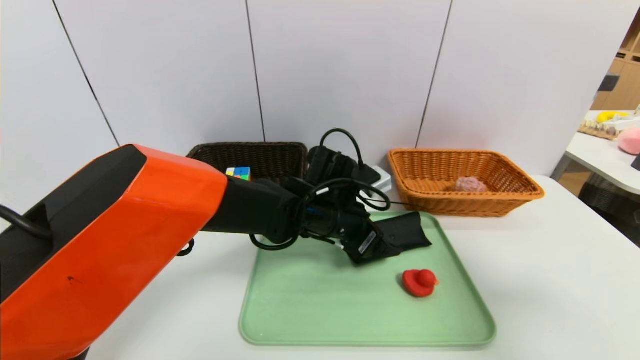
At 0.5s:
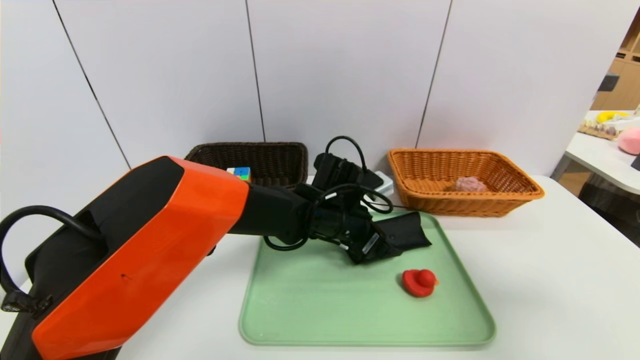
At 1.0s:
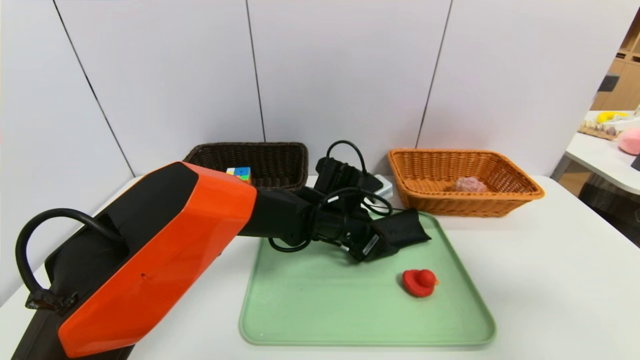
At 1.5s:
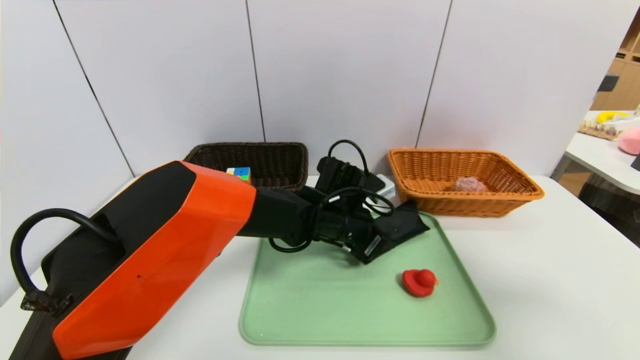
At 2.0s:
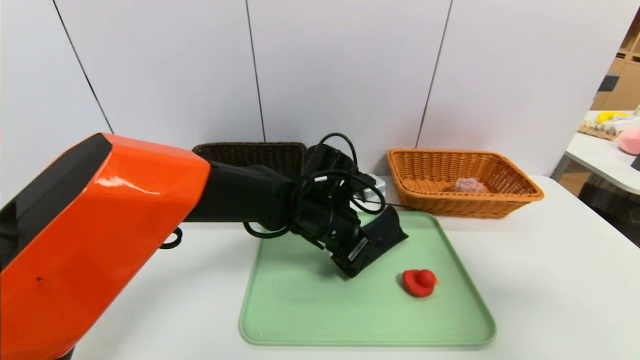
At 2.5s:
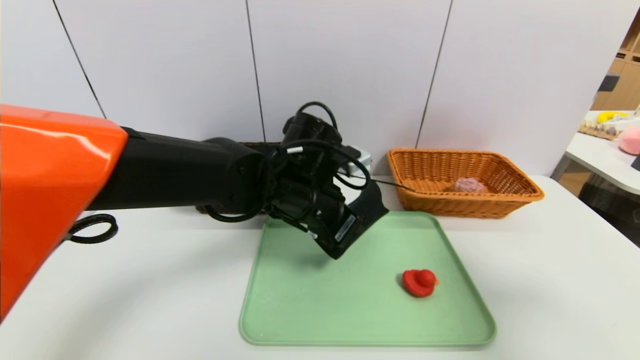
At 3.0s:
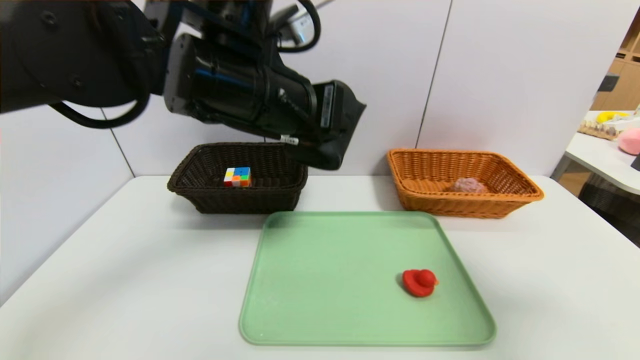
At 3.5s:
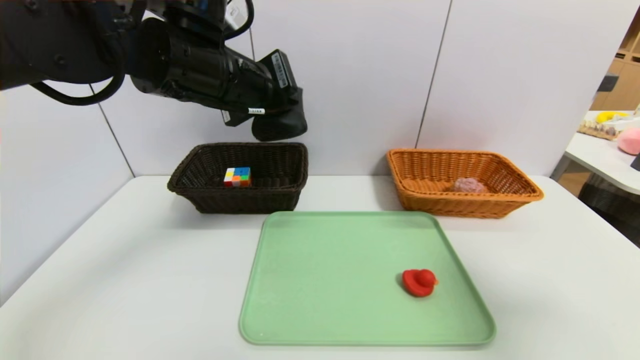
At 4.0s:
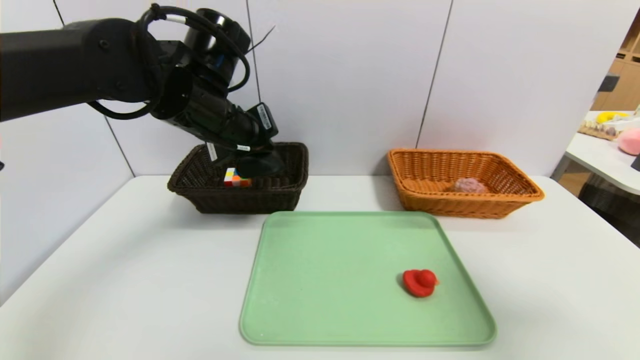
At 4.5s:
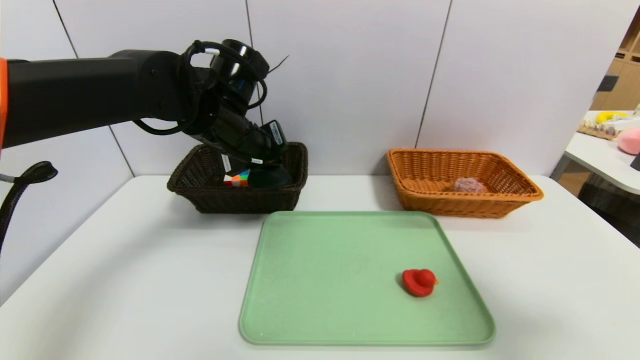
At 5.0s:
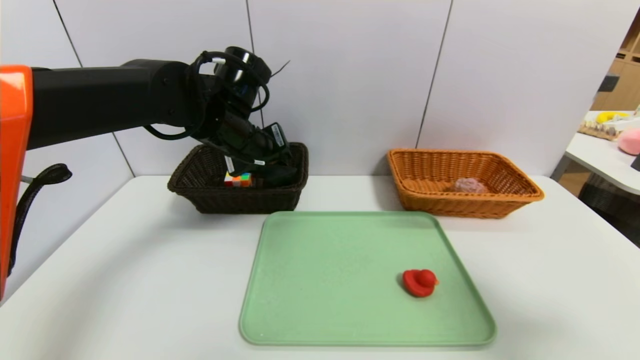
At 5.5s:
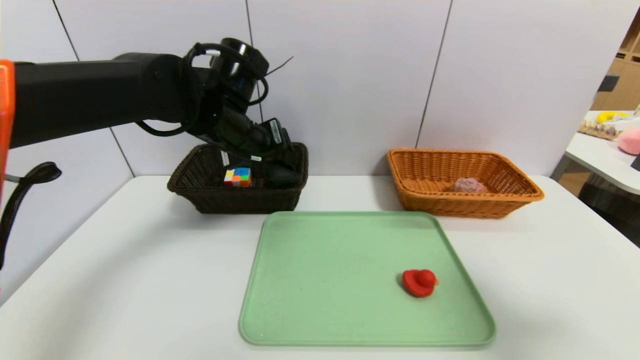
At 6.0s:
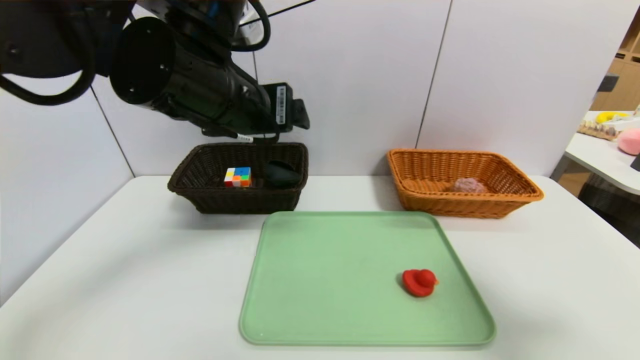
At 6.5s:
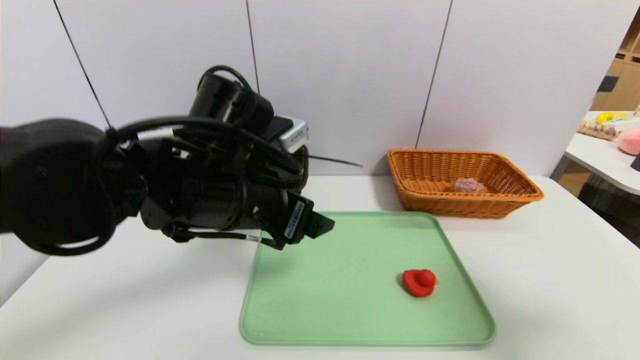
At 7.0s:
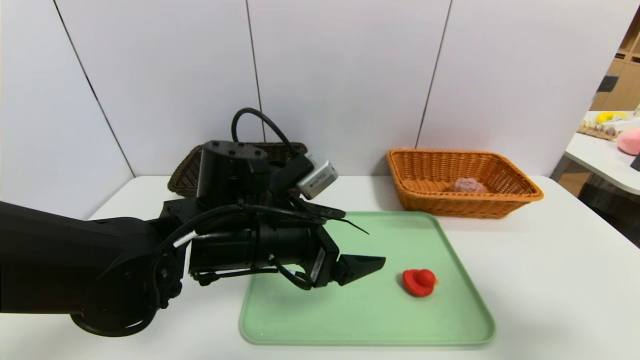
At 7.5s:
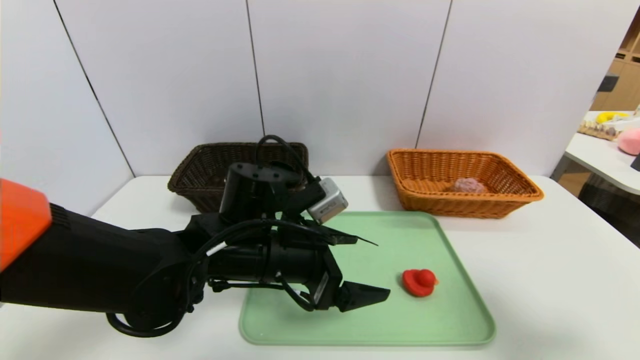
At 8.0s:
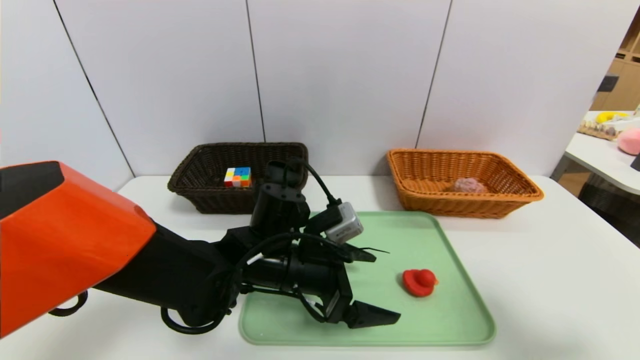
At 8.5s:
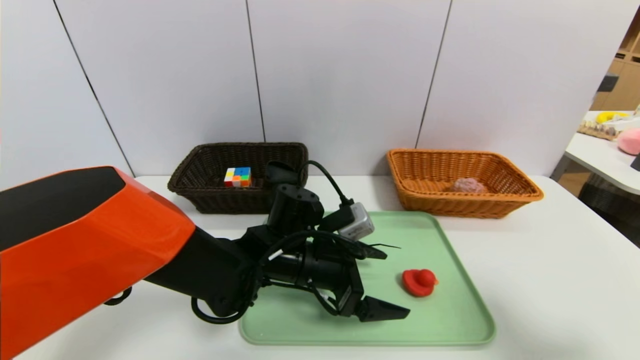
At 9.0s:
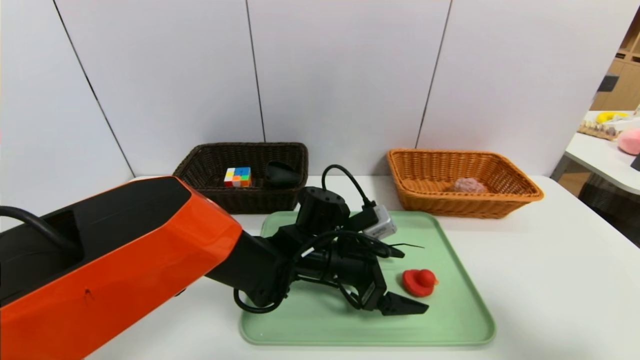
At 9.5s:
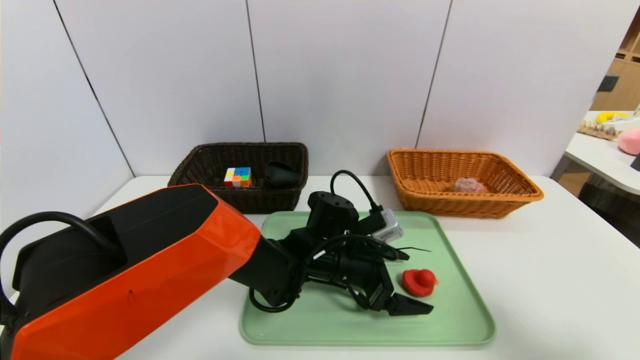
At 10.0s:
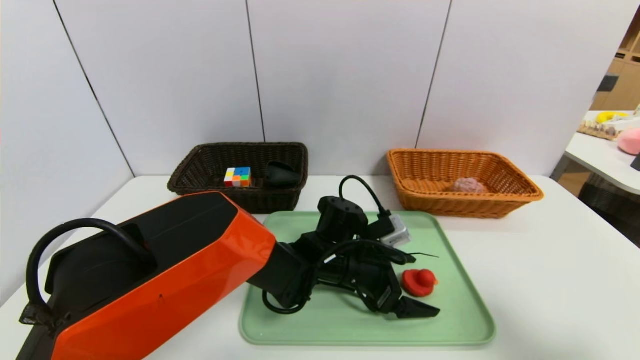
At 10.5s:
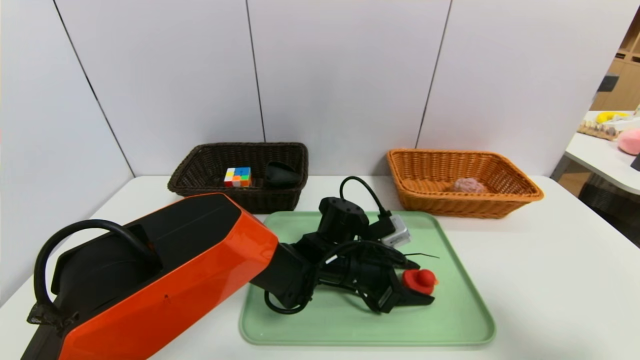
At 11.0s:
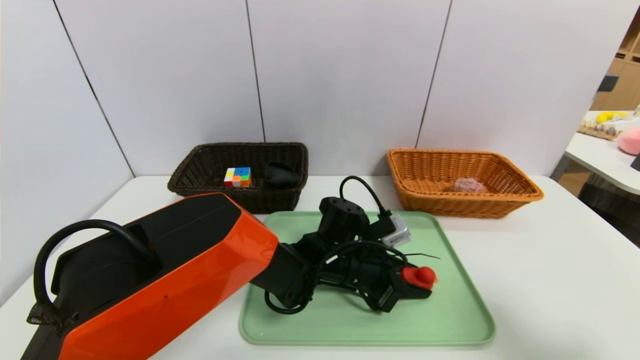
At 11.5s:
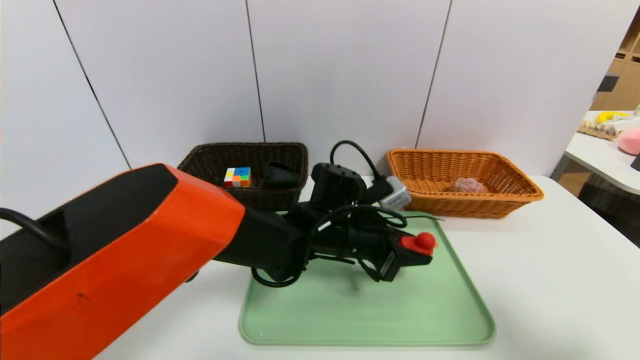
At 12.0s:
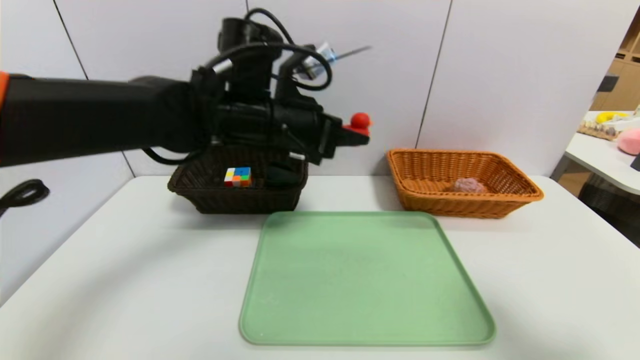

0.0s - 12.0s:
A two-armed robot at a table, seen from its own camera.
Task of the whole recording: place the food in the right basket with the right gripper, and place the non food items in the left basket with the left gripper.
Step, 0.0s - 5.5s: Grasp the glasses case and put it in the left basket.
0.0s - 2.0s: The left gripper closes up.
2.0s - 4.0s: The left gripper travels upward and to the left by some 20 cm.
4.0s - 6.0s: The left gripper travels backward by roughly 5 cm, and opens.
6.0s - 8.0s: The left gripper shifts approximately 20 cm downward.
8.0s - 10.0s: The left gripper goes roughly 10 cm to the right and downward.
10.0s - 12.0s: The left gripper moves upward and to the left, about 25 cm, and closes up.

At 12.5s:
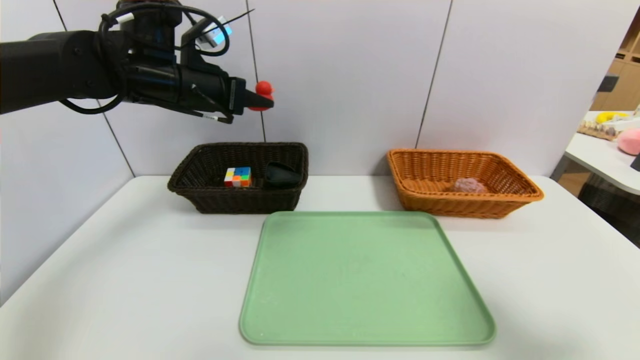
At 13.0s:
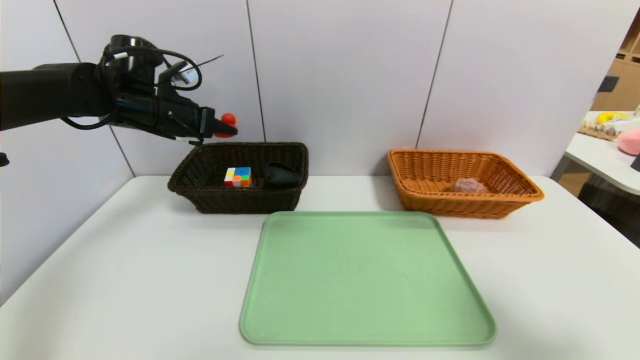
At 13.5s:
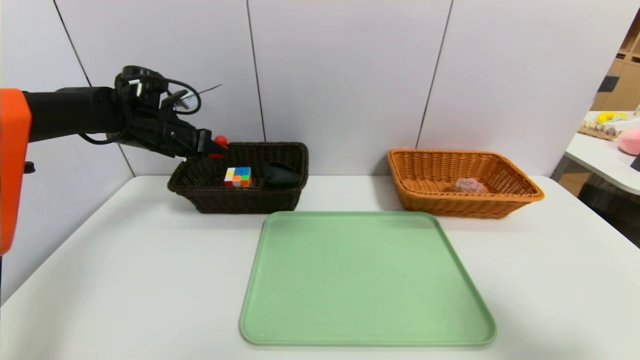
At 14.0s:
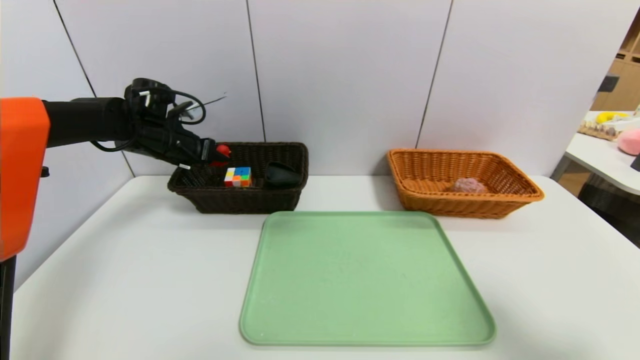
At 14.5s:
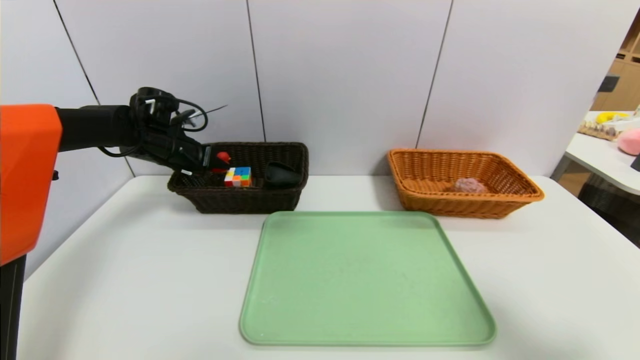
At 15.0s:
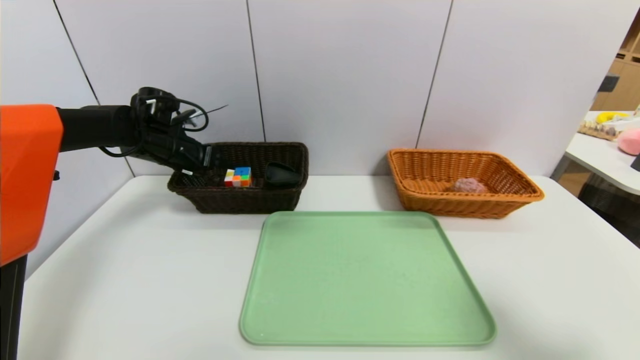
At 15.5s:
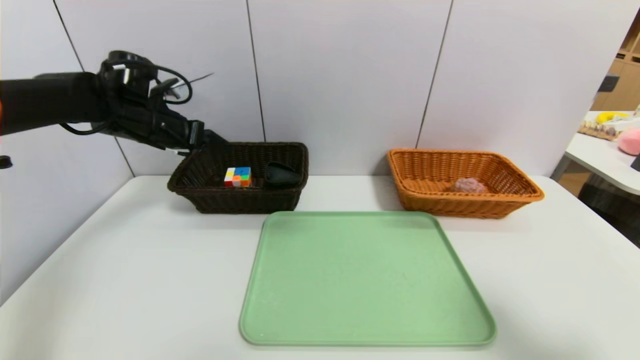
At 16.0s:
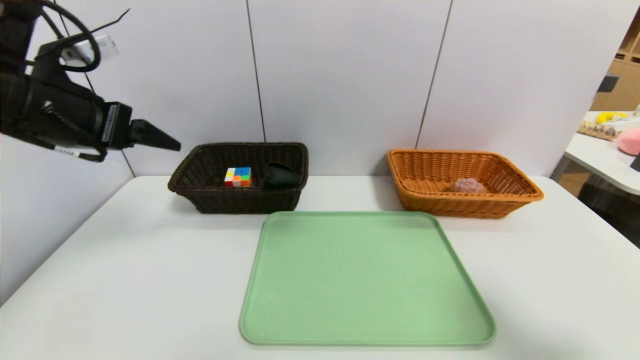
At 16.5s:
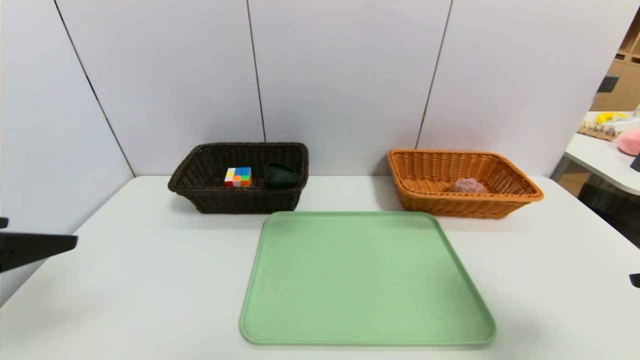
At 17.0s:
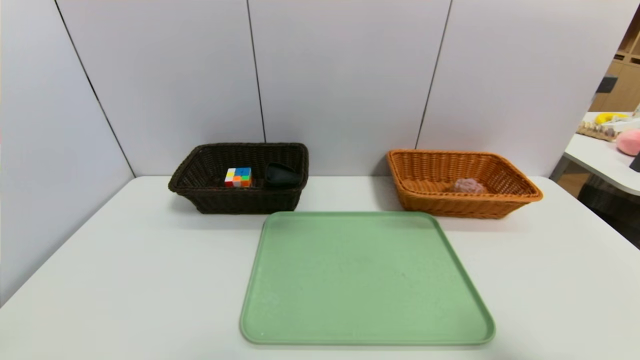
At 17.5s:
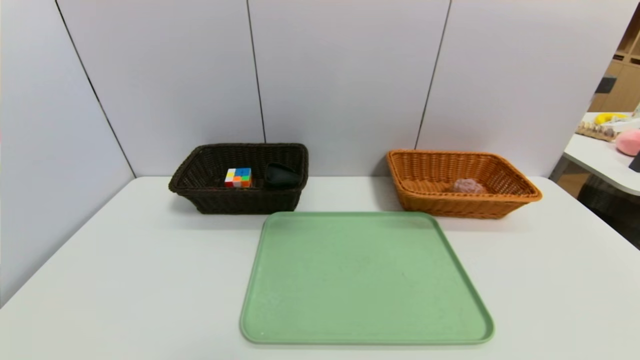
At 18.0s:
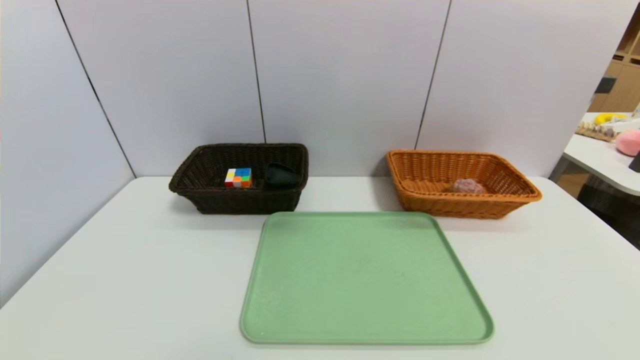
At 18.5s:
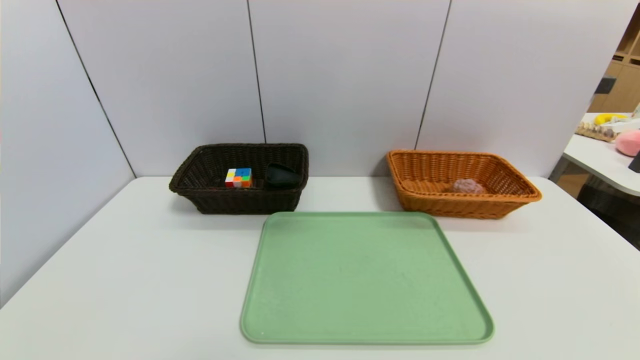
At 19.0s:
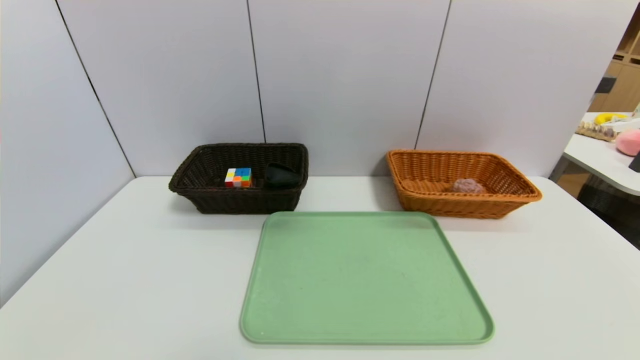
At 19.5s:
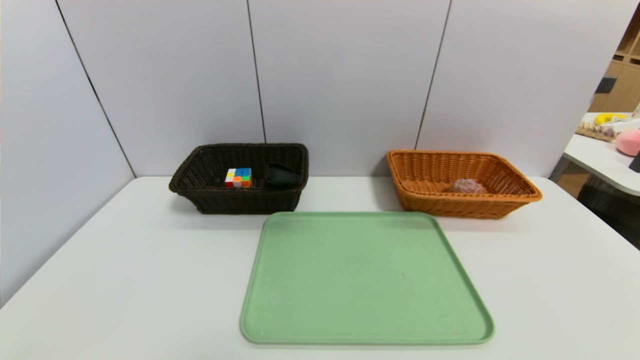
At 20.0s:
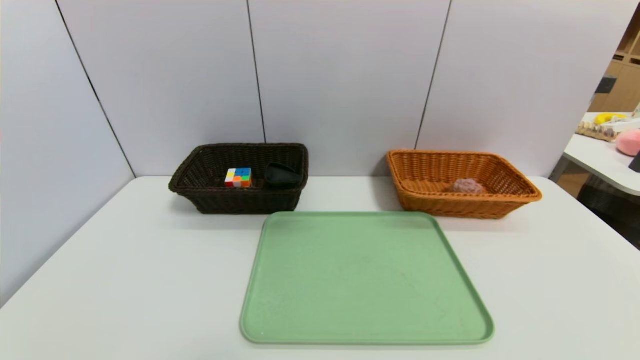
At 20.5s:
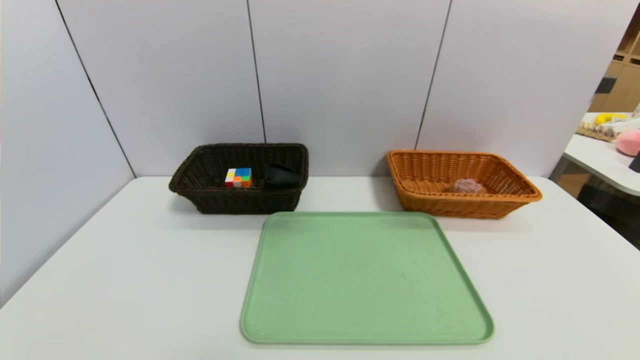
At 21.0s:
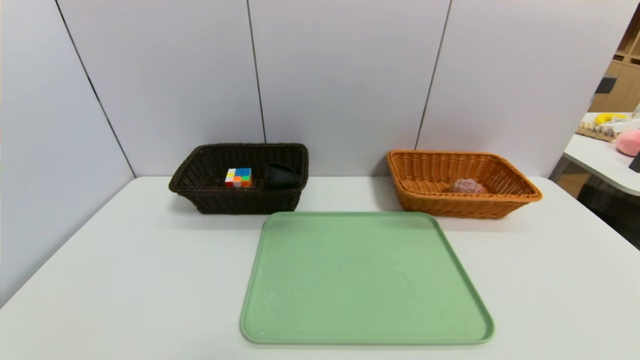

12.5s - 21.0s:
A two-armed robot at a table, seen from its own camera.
Task of the whole recording: place the food in the right basket with the right gripper, and place the non food items in the left basket with the left gripper.
Step, 12.5s - 15.0s: Grasp the red duck and put it in the left basket.
12.5s - 14.5s: The left gripper shifts some 15 cm downward, to the left and forward.
14.5s - 16.5s: The left gripper travels backward by about 35 cm, and opens up.
16.5s - 19.0s: The right gripper heads downward and backward, covering approximately 20 cm; the left gripper goes approximately 20 cm backward and downward.
